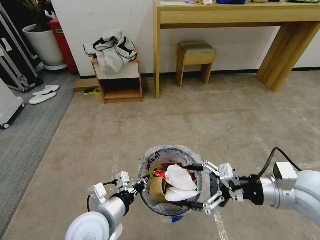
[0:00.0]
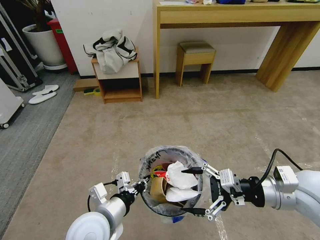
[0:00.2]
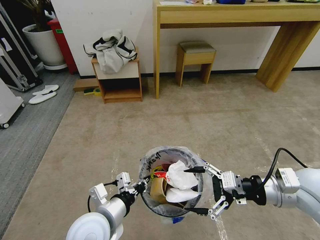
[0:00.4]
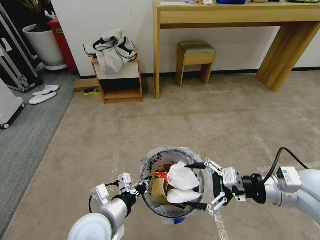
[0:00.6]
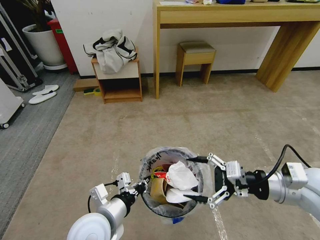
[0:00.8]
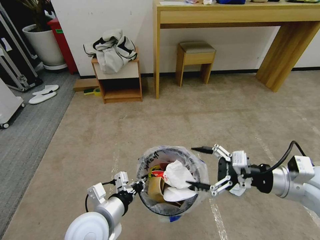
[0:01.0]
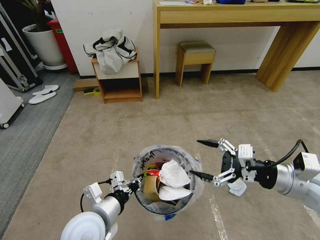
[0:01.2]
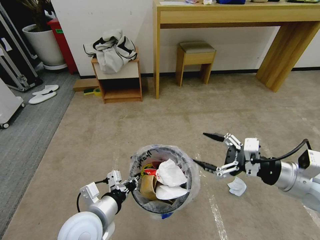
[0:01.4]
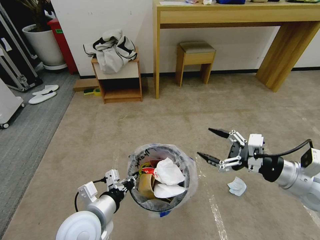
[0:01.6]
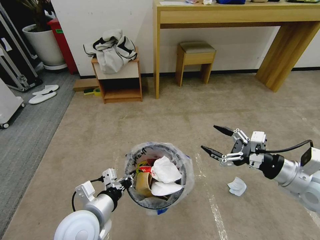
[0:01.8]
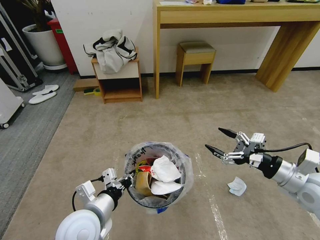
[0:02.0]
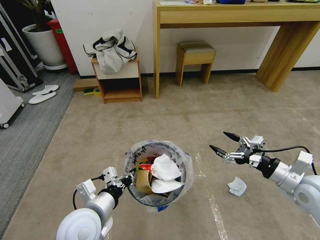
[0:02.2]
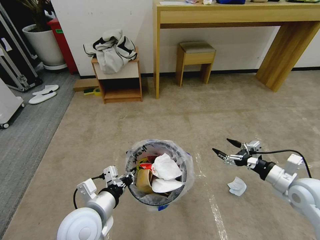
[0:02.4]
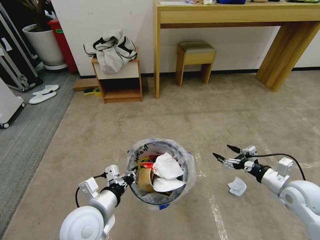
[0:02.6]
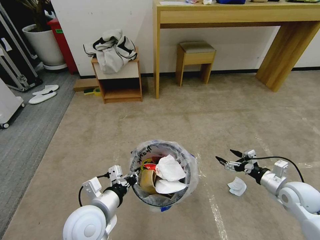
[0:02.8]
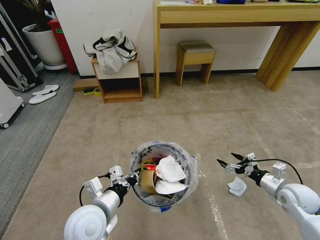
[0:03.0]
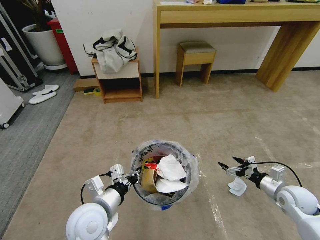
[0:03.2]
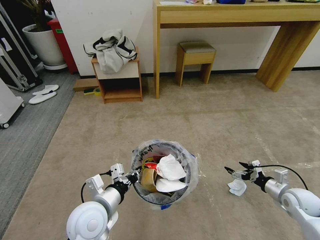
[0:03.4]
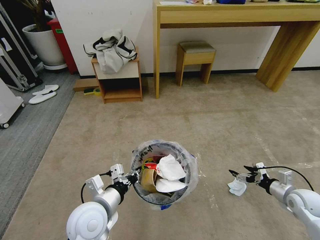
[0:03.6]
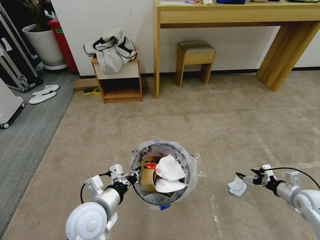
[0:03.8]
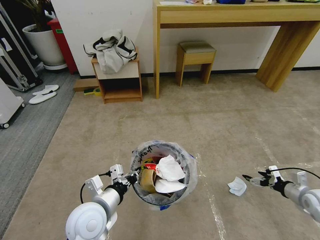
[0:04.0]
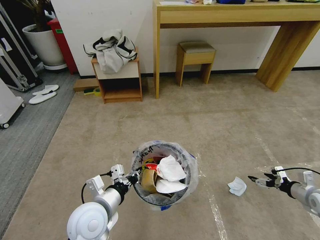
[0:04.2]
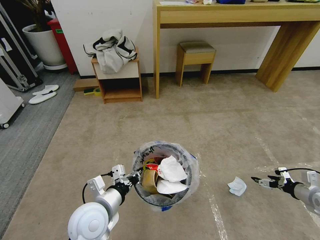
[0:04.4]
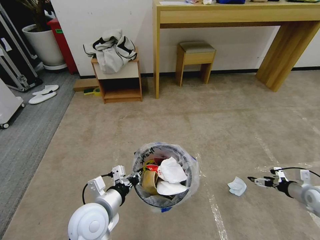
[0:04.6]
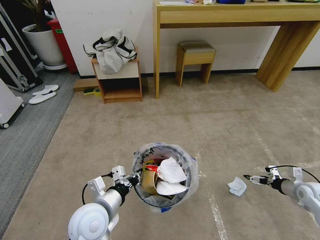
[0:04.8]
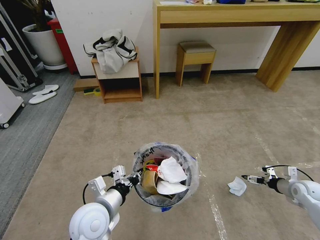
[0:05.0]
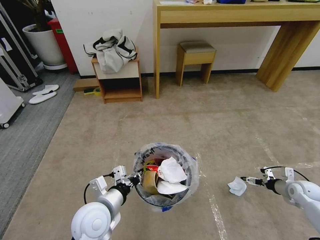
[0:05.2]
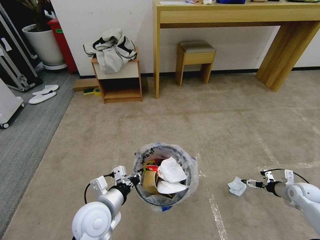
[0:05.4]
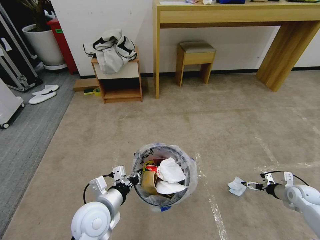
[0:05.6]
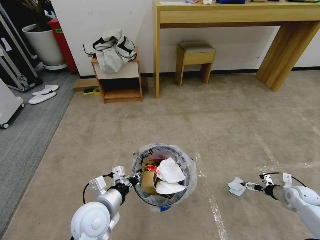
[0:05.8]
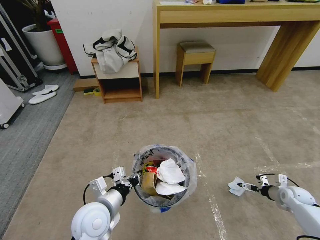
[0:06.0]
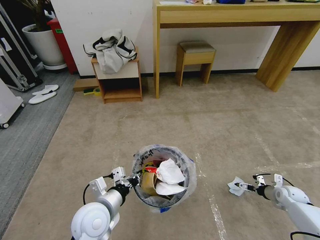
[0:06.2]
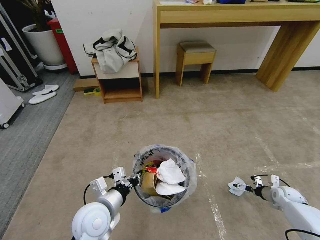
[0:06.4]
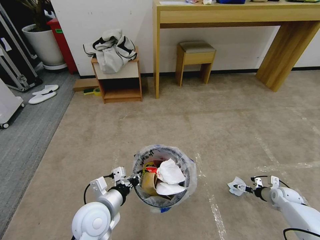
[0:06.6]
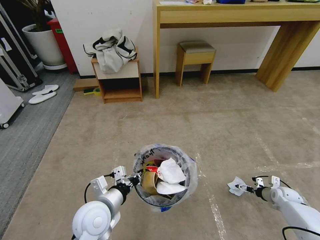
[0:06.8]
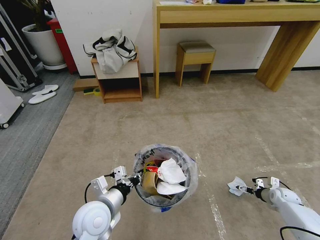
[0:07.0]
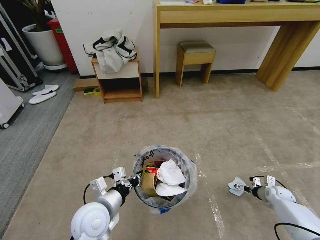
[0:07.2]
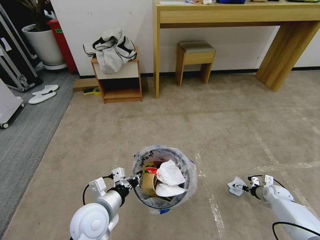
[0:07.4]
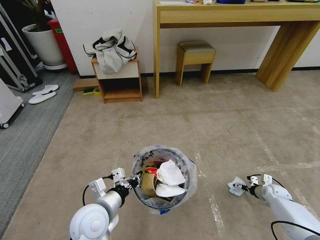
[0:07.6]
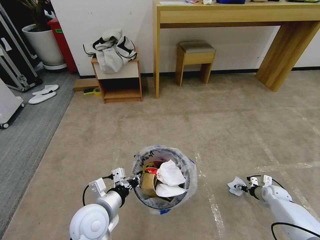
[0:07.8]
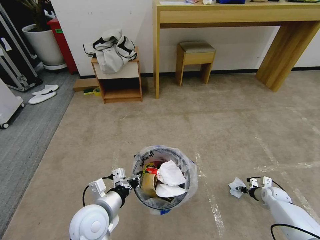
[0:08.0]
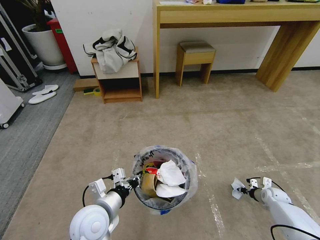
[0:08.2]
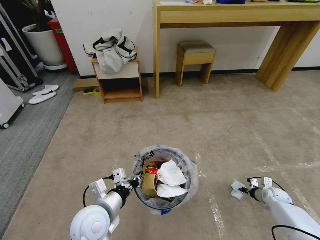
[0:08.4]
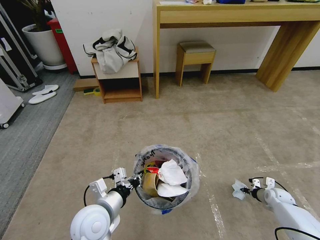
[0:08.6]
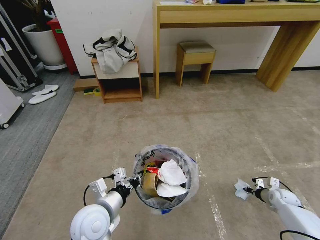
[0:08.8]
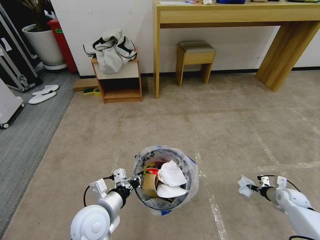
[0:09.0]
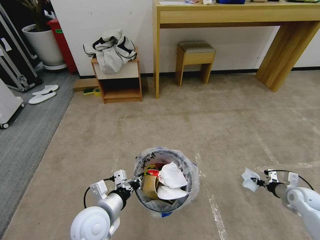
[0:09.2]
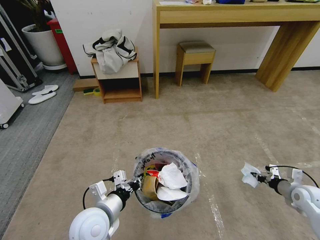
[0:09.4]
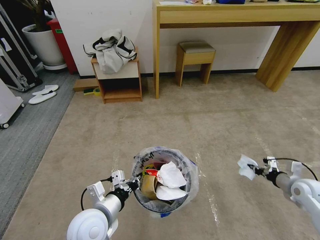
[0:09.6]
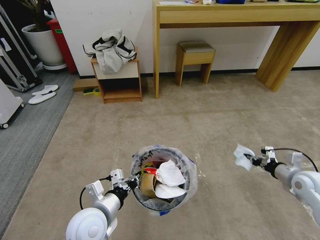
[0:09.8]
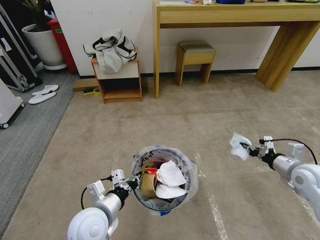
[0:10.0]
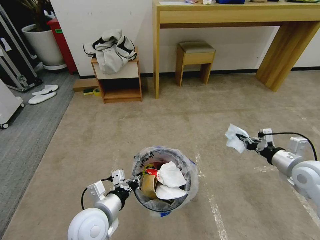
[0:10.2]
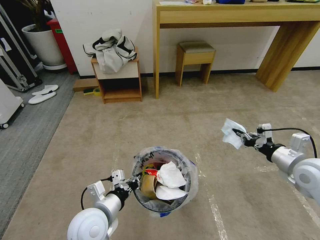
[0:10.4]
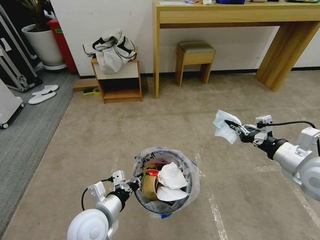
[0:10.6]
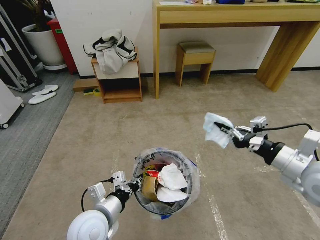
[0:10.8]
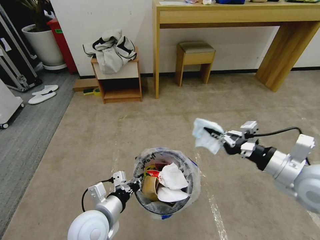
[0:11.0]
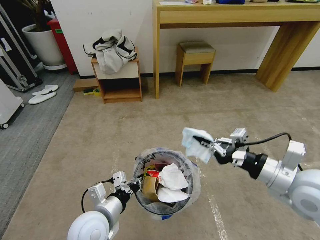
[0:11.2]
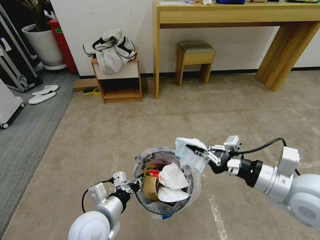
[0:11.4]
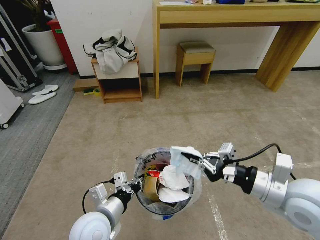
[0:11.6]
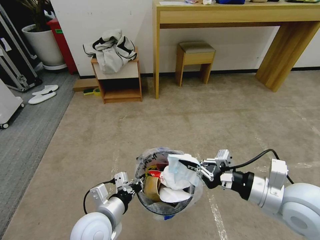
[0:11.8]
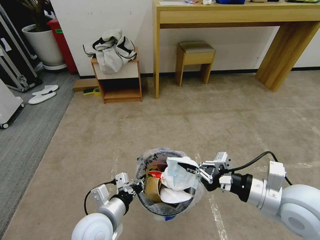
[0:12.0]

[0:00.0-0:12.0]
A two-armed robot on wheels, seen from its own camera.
Task of the whole recording: Pick up the trash bin and place the garbage on the floor into it.
0:01.6 to 0:03.0: The right gripper shifts about 20 cm downward and to the right.
0:03.0 to 0:04.4: The right gripper goes approximately 15 cm to the right.
0:04.4 to 0:06.0: The right gripper heads downward and forward, covering about 10 cm.
0:06.0 to 0:07.6: The right gripper moves downward, about 5 cm.
0:07.6 to 0:09.0: The right gripper moves approximately 5 cm, and closes its fingers.
0:09.0 to 0:10.4: The right gripper goes some 30 cm upward and to the left.
0:10.4 to 0:12.0: The right gripper shifts roughly 15 cm to the left and backward.

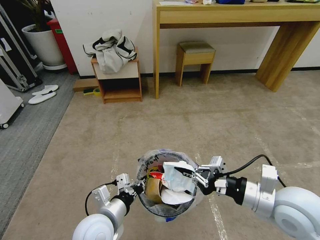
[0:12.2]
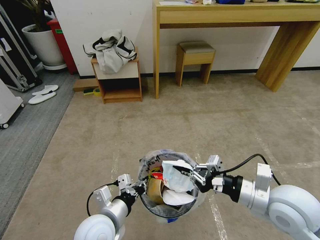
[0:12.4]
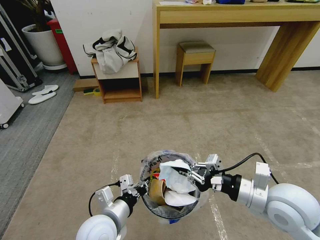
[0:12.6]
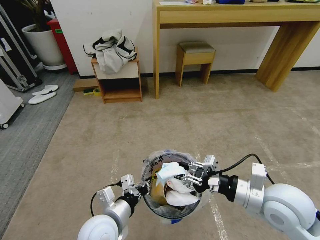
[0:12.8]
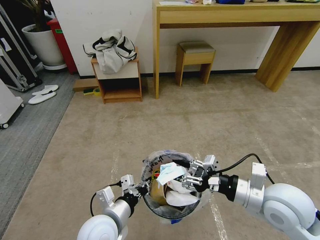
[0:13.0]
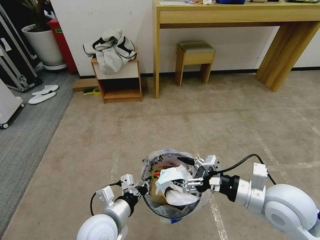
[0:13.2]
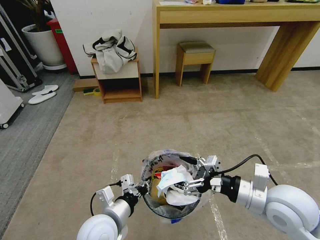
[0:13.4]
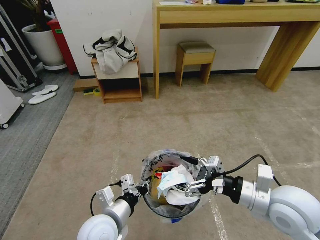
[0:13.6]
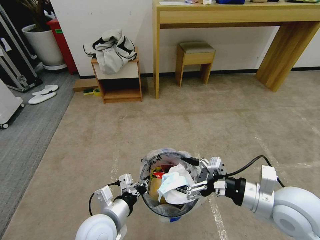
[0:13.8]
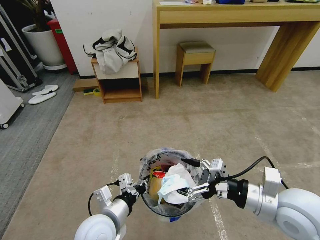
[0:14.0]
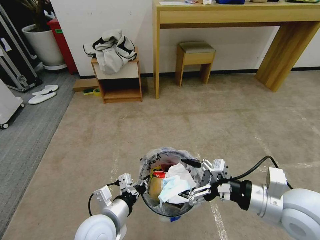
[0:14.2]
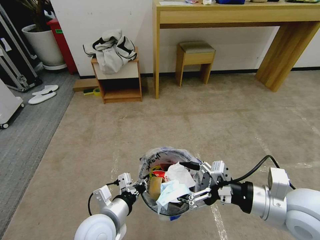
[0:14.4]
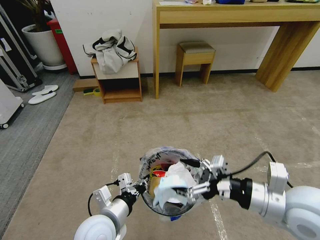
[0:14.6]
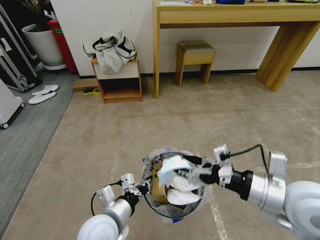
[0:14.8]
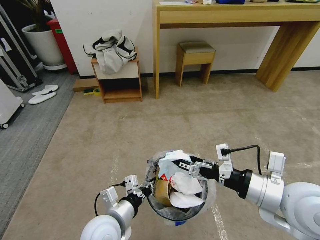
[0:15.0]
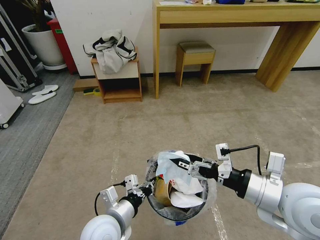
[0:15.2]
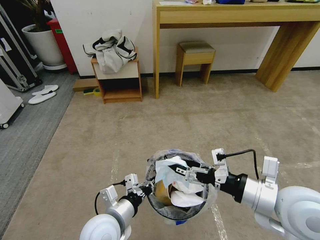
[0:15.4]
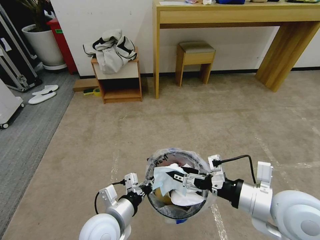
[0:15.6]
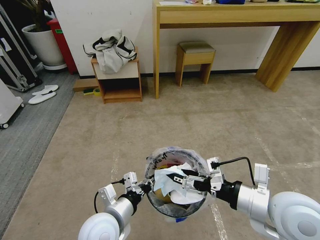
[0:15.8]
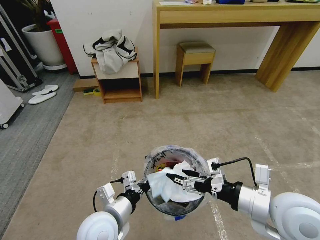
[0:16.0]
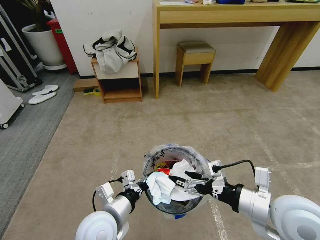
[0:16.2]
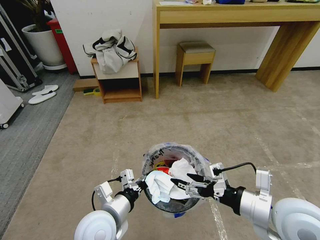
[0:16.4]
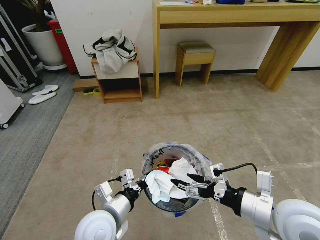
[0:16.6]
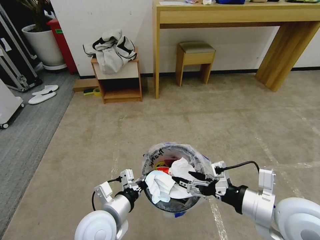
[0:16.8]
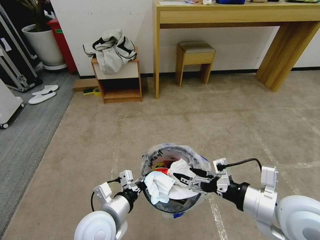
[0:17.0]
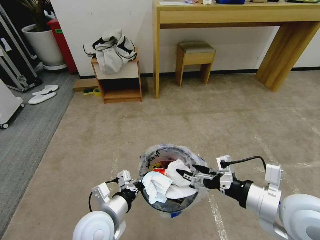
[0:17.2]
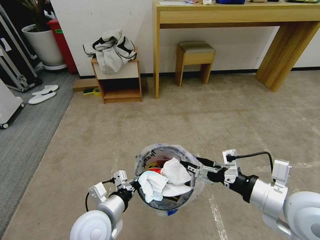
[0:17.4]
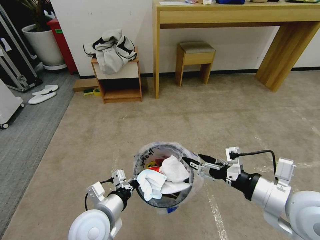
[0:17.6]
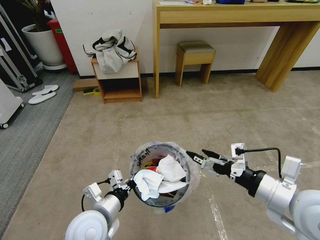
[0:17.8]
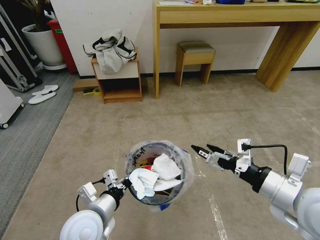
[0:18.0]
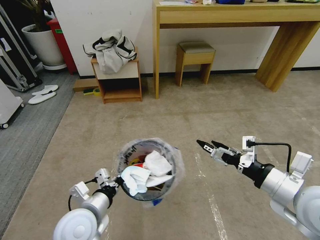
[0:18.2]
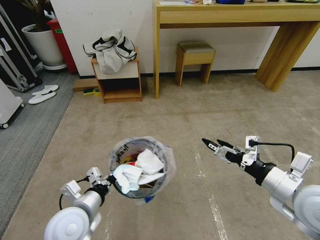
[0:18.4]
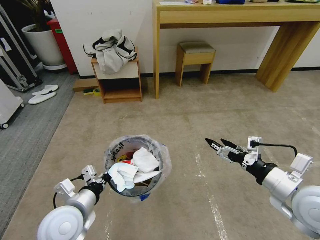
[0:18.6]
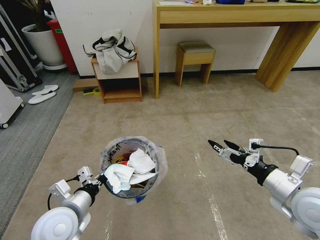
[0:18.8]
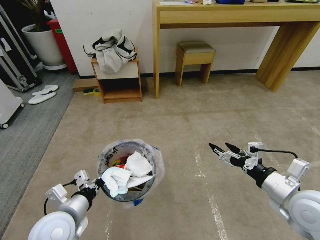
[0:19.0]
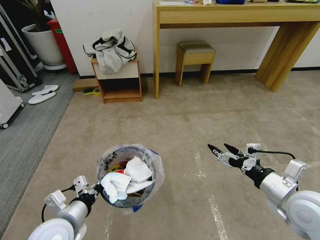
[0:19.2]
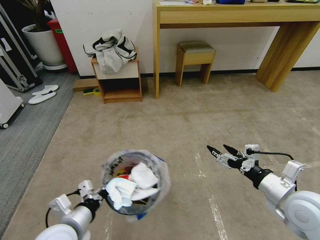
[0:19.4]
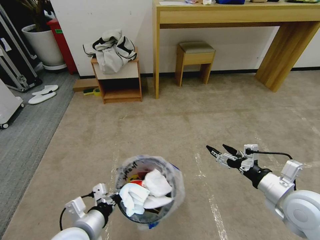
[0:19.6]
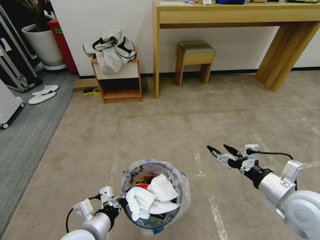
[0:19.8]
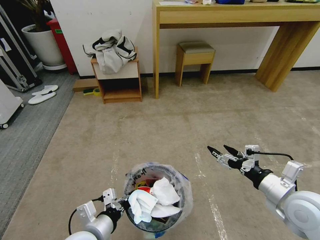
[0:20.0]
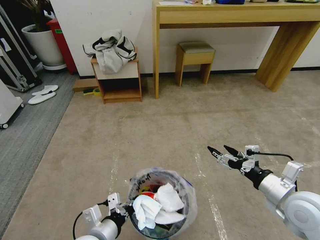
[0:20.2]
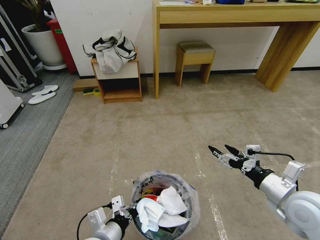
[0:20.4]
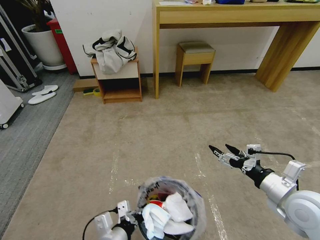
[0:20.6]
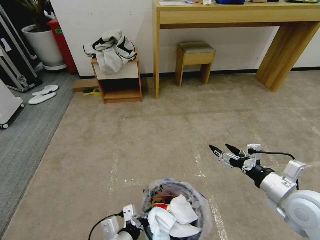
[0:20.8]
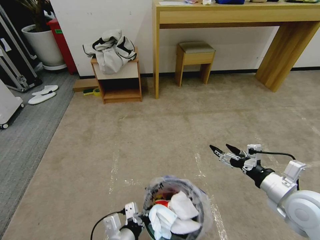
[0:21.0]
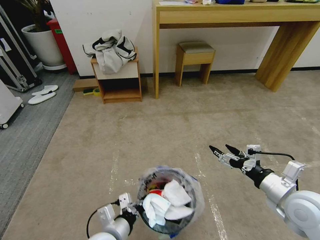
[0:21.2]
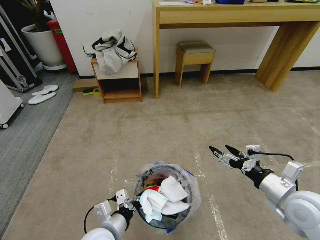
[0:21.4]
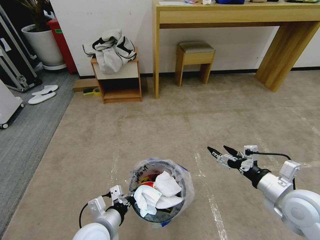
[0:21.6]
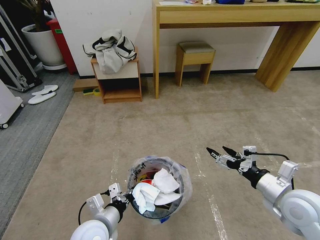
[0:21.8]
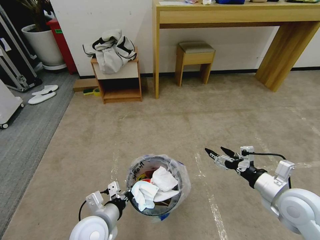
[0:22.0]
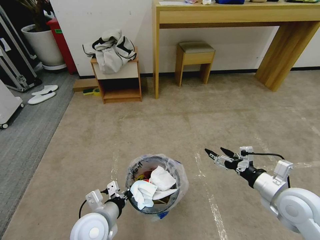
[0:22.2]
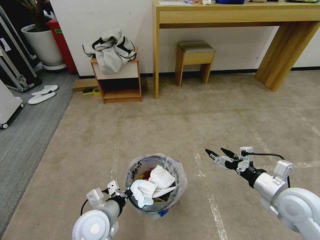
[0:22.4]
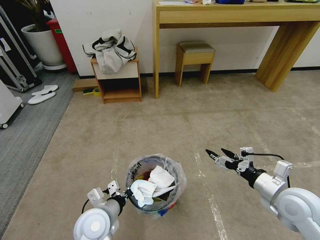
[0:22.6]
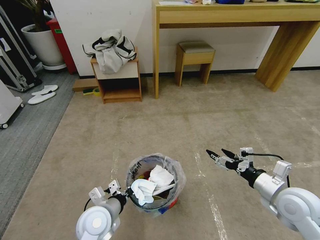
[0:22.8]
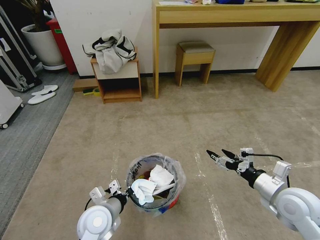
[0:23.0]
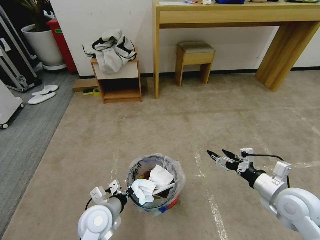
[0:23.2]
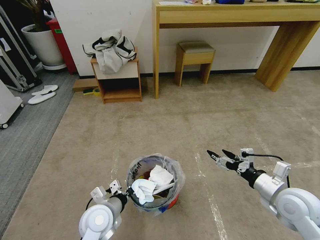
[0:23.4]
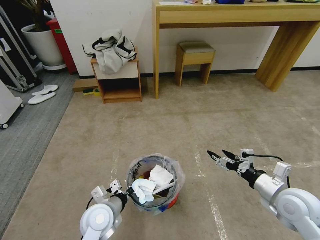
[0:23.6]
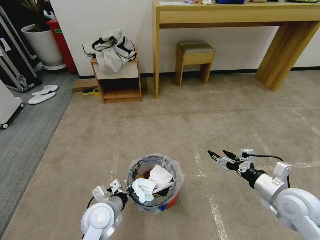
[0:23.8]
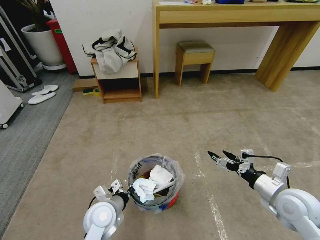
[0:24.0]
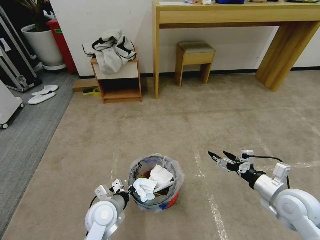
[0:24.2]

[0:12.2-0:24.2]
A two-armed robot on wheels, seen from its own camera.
Task of the whole recording: Pick up the trash bin and place the garbage on the floor into it.
0:12.2 to 0:13.8: The right gripper opens its fingers.
0:15.2 to 0:16.6: The grippers stay close to where they were, moving slightly.
0:16.6 to 0:18.2: The right gripper ends up approximately 5 cm from where it was. Meanwhile the left gripper shifts some 5 cm to the left.
0:18.2 to 0:19.8: The right gripper heads downward, covering some 5 cm.
0:19.8 to 0:21.2: The left gripper shifts some 5 cm to the right.
0:21.2 to 0:22.6: The left gripper moves forward, approximately 5 cm.
0:22.6 to 0:24.2: The left gripper ends up some 5 cm from where it was.
